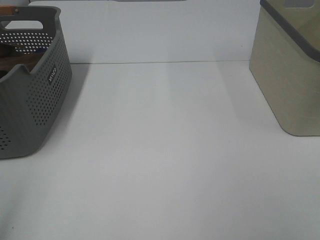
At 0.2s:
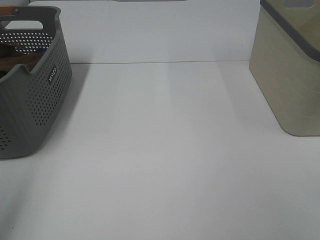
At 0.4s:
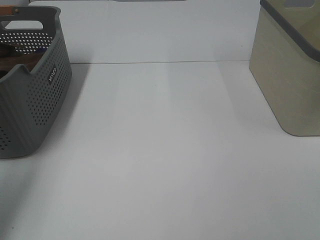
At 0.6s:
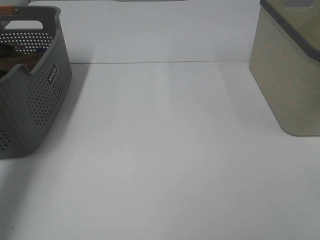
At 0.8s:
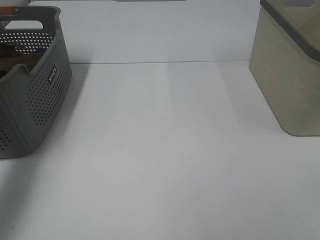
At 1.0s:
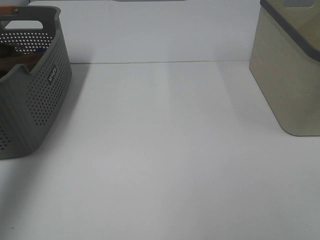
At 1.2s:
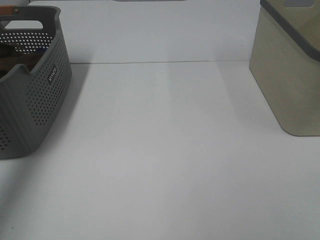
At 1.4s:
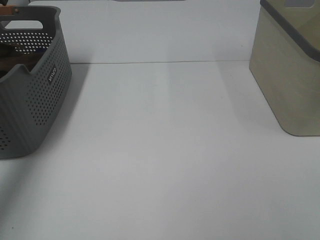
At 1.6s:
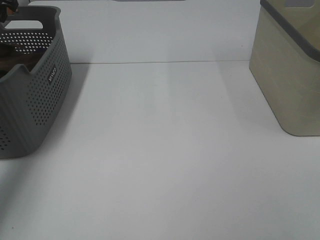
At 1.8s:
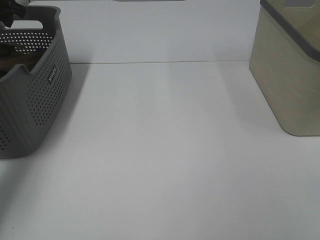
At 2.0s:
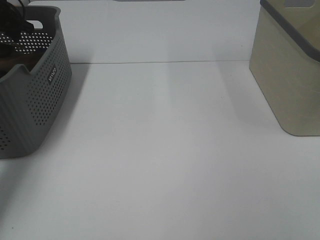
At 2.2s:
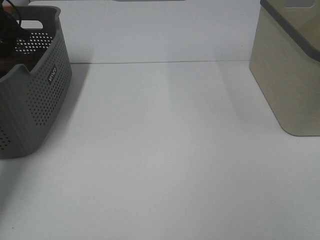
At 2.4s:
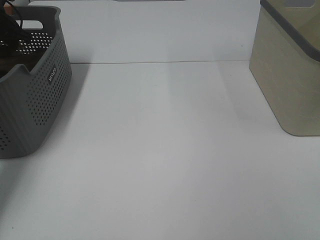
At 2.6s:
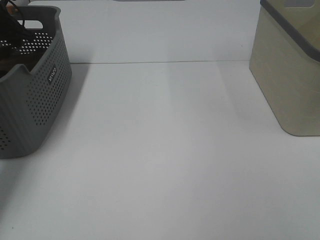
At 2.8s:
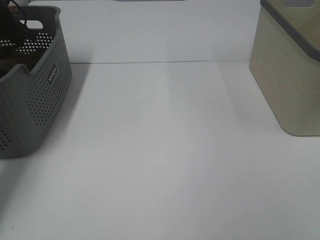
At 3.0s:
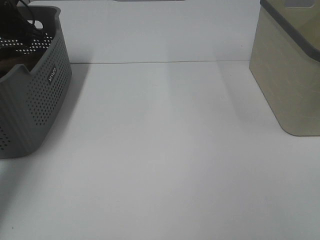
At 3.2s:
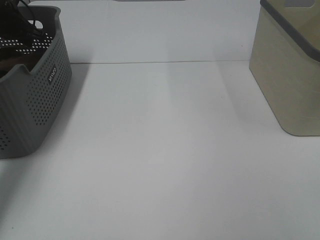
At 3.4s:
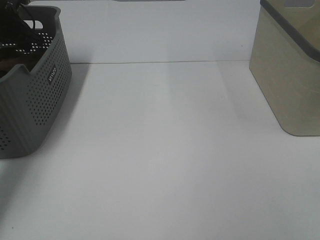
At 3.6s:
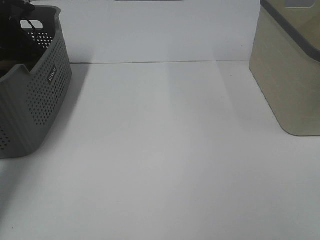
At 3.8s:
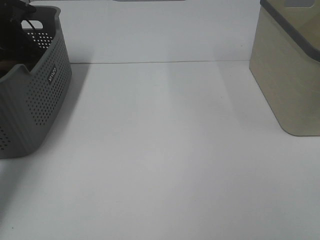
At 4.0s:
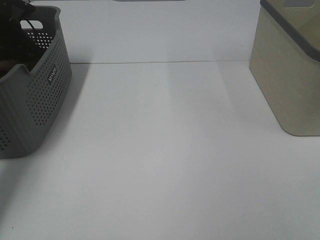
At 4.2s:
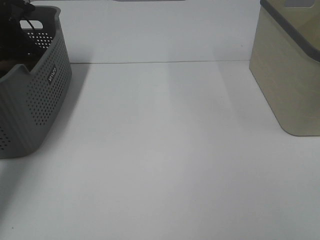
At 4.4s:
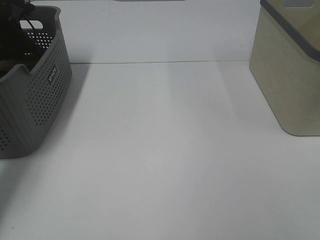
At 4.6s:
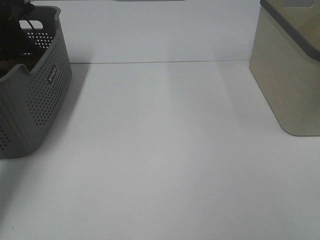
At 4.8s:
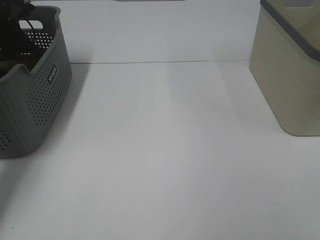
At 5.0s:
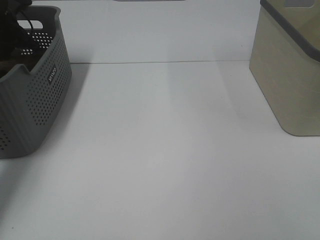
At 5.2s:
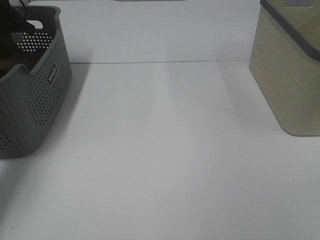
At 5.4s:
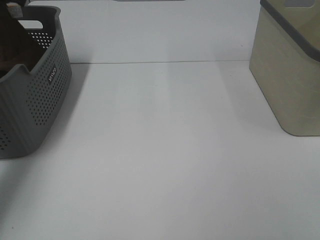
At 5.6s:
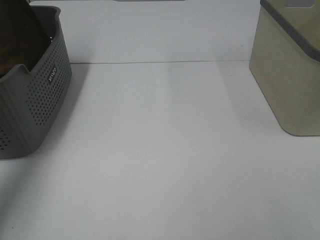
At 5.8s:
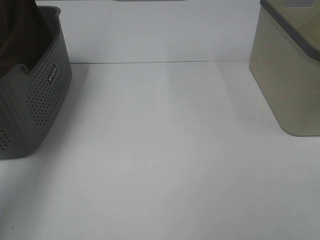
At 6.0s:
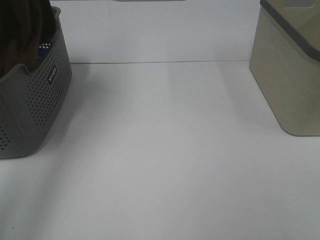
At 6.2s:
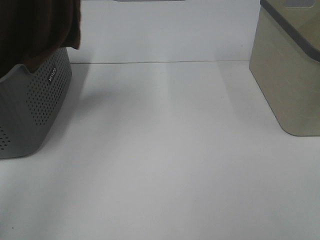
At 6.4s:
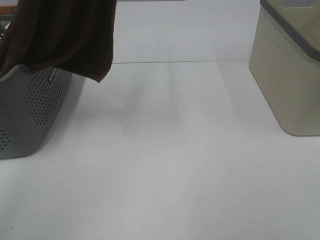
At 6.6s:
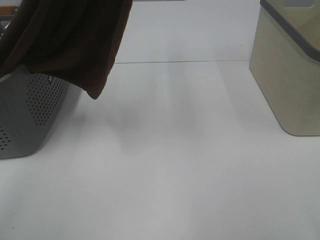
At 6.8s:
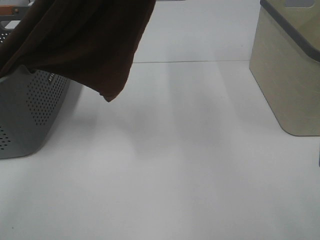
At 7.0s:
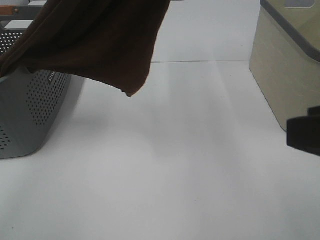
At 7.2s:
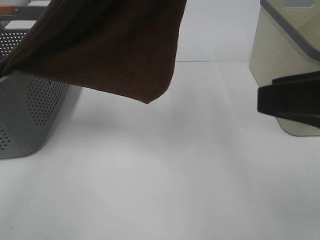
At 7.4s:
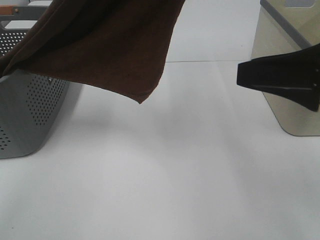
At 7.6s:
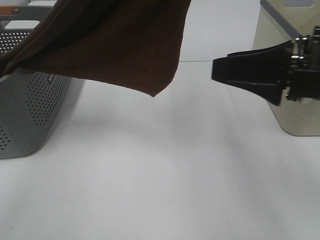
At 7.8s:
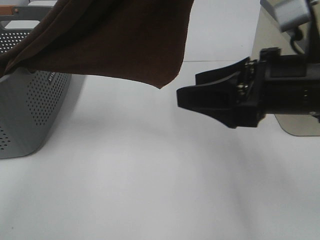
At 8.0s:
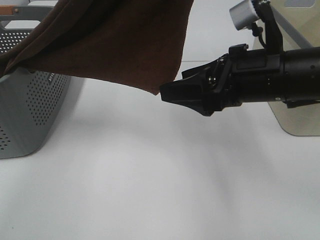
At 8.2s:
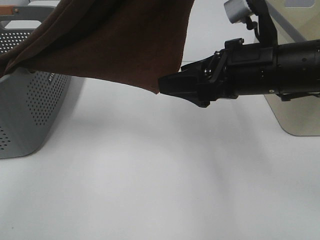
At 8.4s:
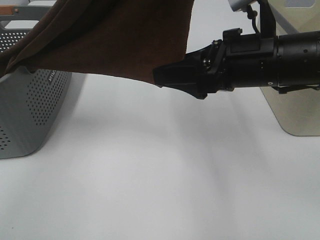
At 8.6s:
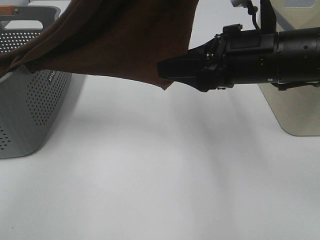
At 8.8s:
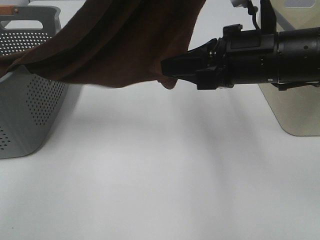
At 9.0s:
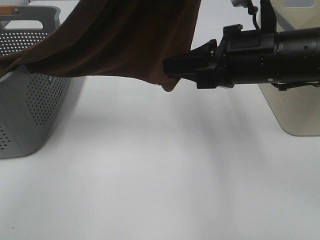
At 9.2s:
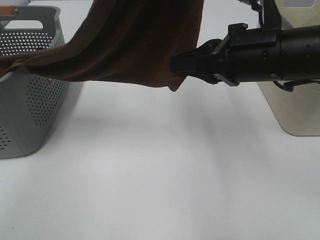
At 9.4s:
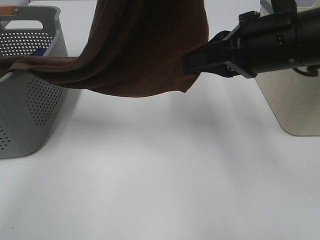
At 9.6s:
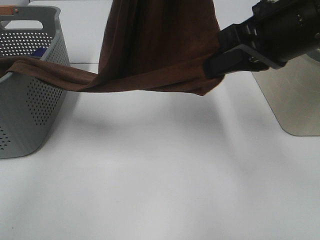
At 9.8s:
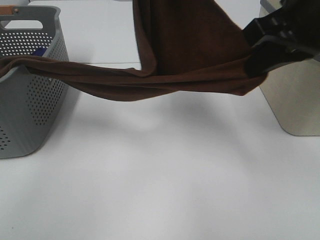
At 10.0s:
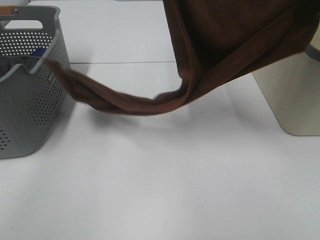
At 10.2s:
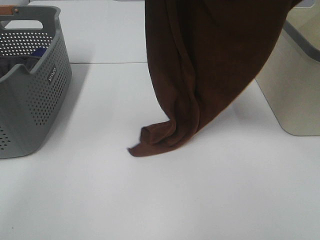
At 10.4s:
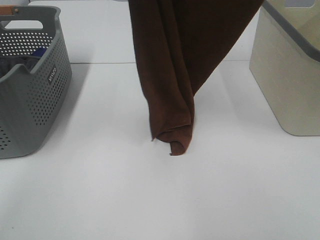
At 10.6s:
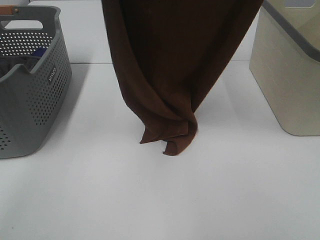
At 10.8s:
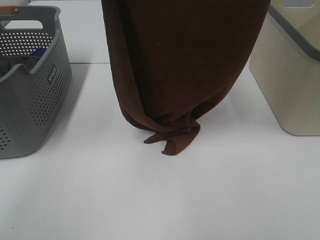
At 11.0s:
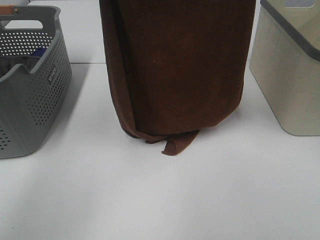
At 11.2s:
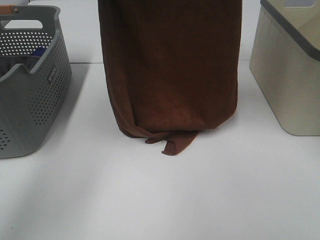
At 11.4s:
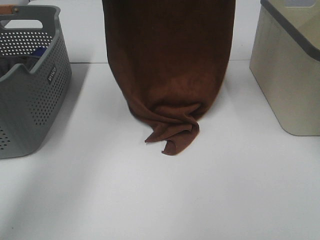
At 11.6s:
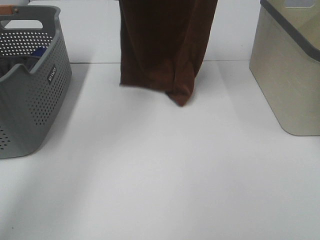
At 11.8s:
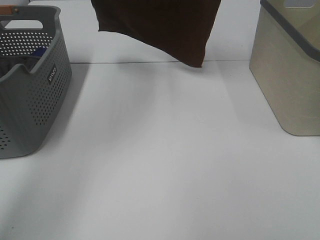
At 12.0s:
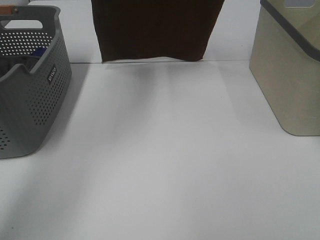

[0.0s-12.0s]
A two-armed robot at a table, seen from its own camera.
Task of the whole recording: Remove the towel and place it.
Step, 5.4s to 8.2s: Right hand: grab a corner of the brown towel and straighten it.
Step, 8.4s to 11.0s: Left hand: spread the brown towel flat on the table.
Step, 8.4s to 11.0s: Right hand: spread the brown towel flat on the table.
0.0s to 1.6s: The left gripper shifts about 50 cm forward.
1.6s to 3.0s: The left gripper shifts roughly 10 cm downward and forward.
4.4s to 6.0s: The left gripper goes about 35 cm upward and backward, and closes.
6.0s to 7.6s: The left gripper goes some 25 cm to the right and backward, while the right gripper moves forward and to the left, some 20 cm.
7.6s to 9.0s: The right gripper shifts about 10 cm to the left and forward, and closes its fingers.
9.0s to 10.4s: The left gripper is displaced to the left by about 5 cm, and travels downward and back again, approximately 10 cm each way, while the right gripper moves upward, roughly 25 cm.
10.4s to 12.0s: Both grippers move forward, roughly 15 cm.

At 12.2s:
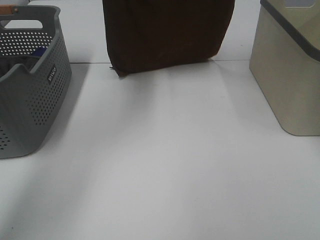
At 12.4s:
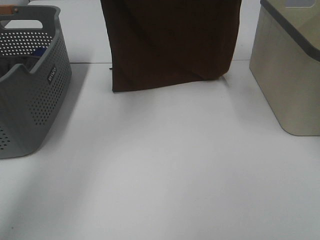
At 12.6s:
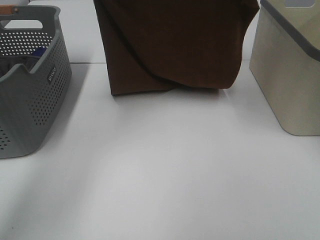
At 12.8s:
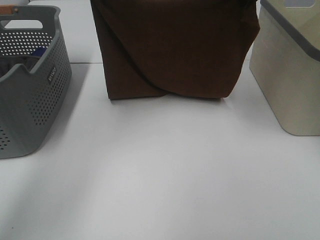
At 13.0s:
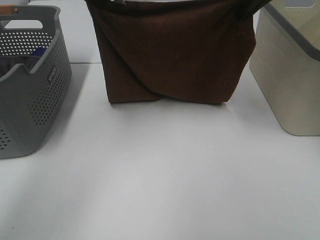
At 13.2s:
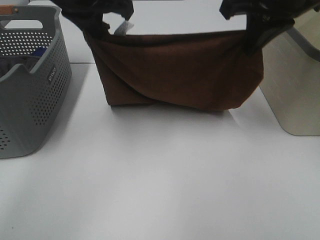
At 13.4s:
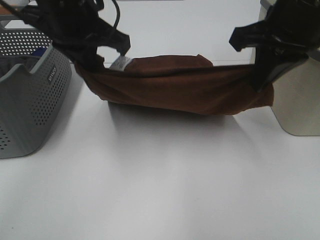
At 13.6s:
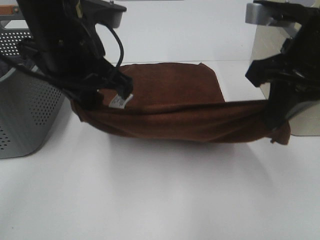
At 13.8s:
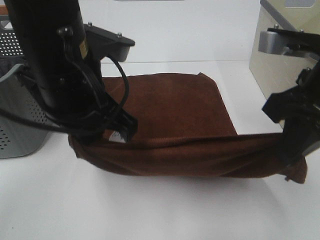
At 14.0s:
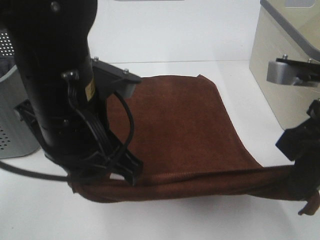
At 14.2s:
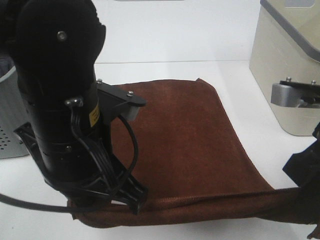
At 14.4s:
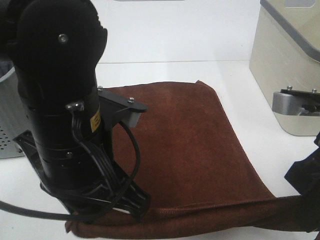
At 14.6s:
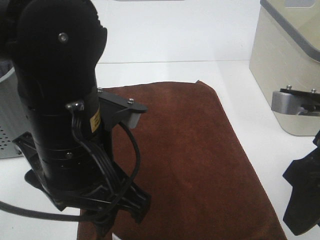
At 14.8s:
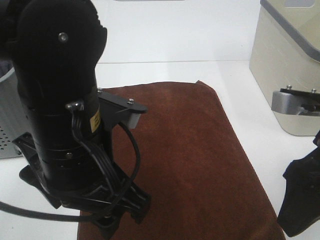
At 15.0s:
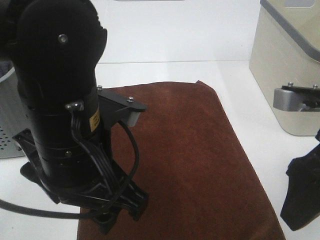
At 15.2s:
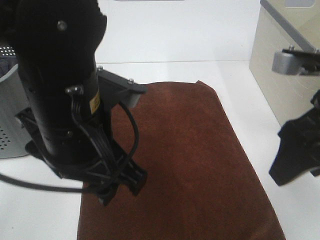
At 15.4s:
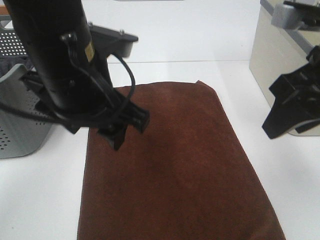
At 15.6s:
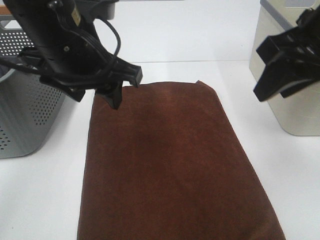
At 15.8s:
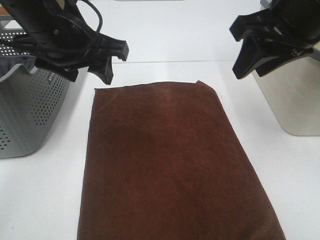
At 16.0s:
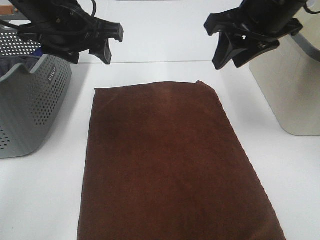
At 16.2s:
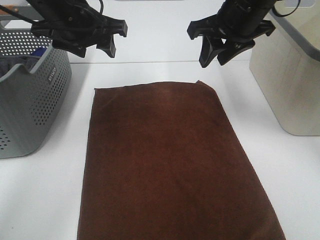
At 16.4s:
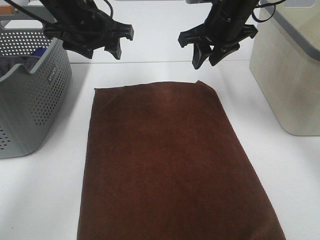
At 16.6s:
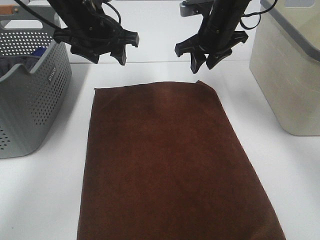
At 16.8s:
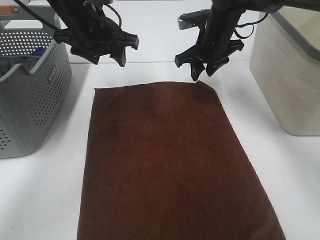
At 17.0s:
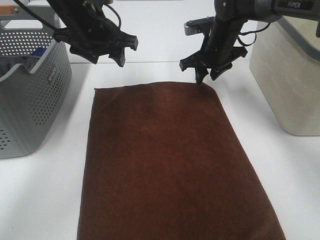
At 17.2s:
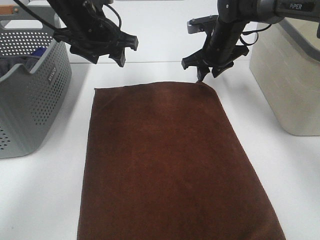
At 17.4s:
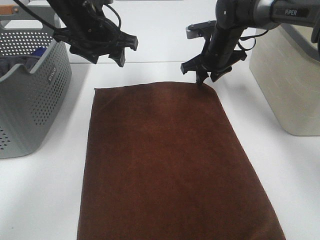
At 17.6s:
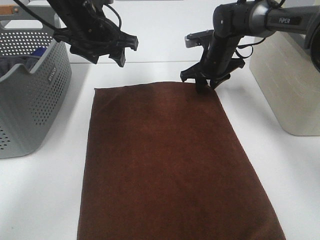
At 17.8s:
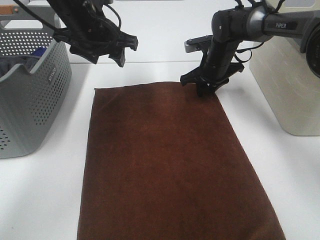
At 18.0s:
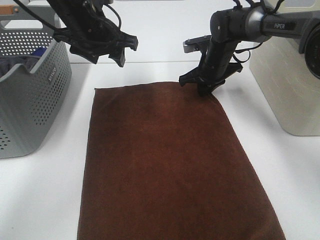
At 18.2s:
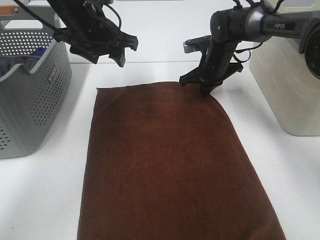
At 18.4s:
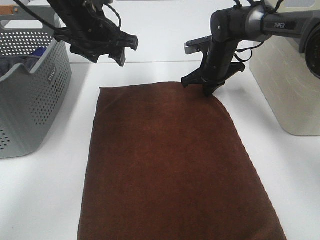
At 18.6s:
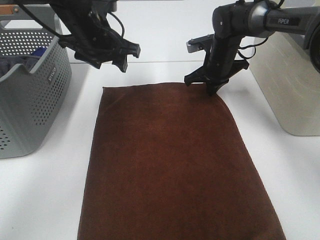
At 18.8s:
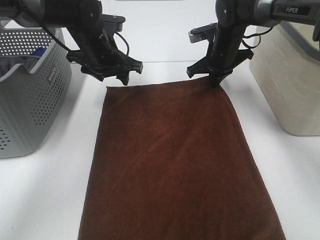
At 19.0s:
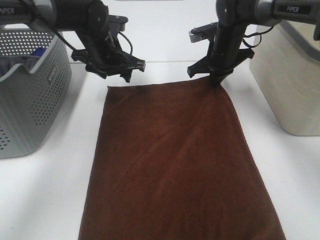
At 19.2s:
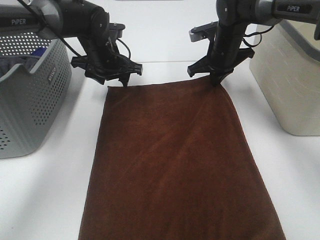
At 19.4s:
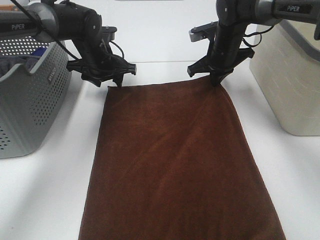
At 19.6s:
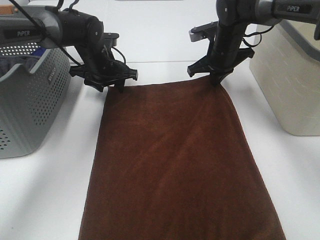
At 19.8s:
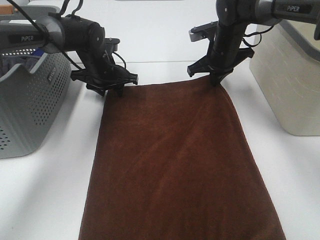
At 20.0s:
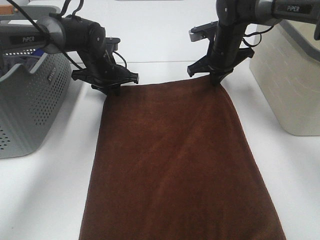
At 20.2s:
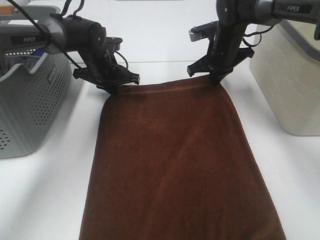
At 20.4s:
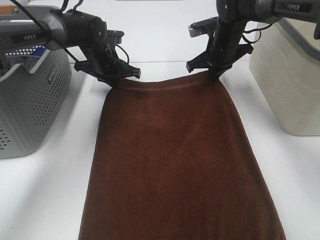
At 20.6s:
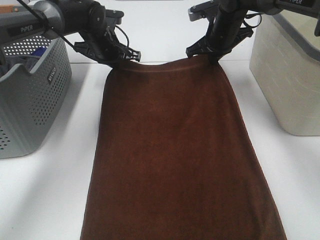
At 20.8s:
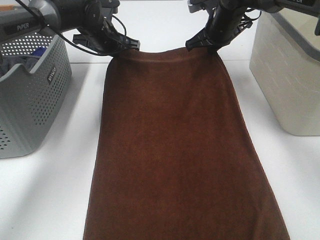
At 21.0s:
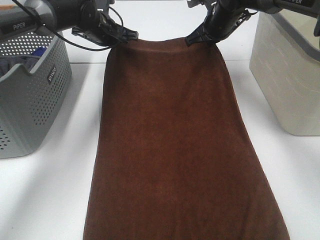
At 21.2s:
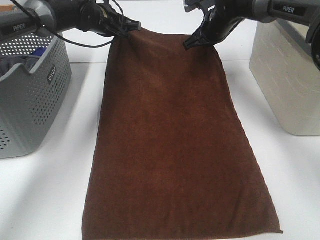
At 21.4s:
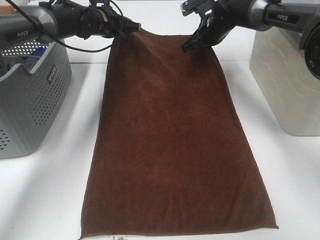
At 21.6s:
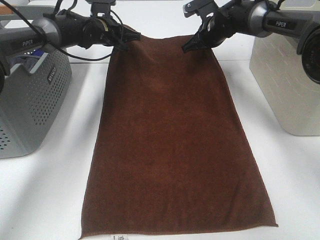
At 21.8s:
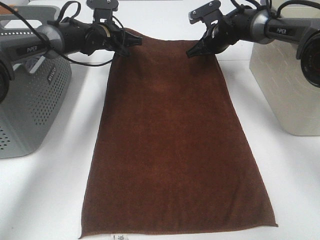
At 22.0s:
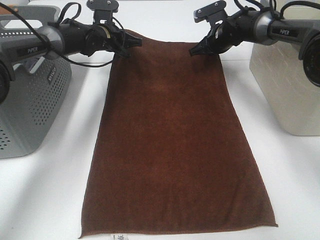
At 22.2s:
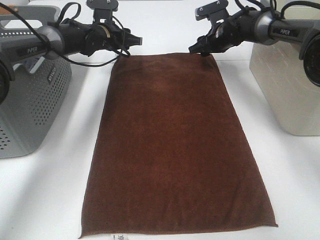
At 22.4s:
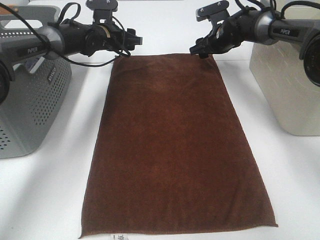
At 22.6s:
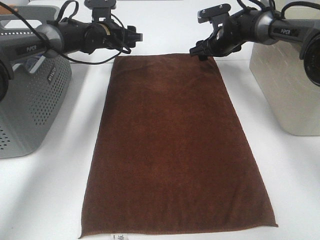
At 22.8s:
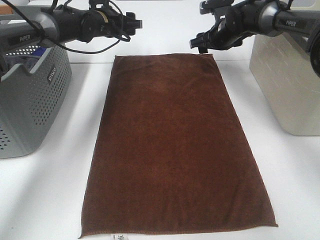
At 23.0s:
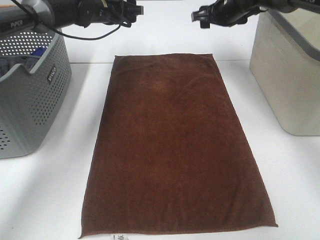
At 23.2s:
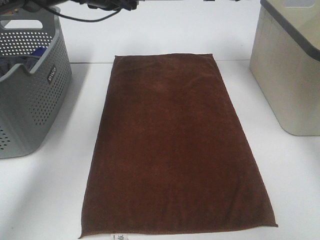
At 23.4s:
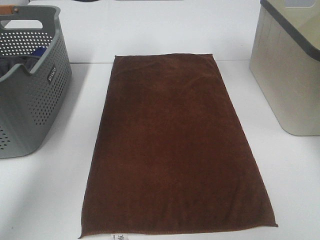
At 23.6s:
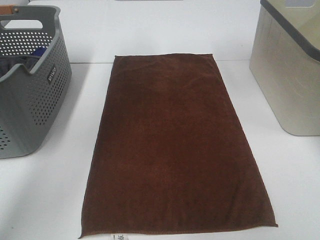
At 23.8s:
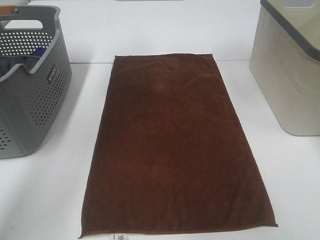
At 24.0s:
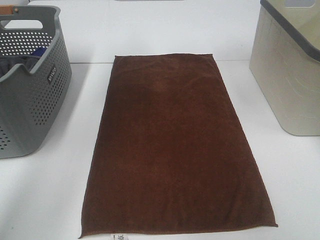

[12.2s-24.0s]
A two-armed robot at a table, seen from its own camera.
Task of the whole recording: Remove the towel and place it.
Step, 12.2s to 17.4s: Left hand:adjust the brown towel.
Step, 12.2s to 17.4s: Right hand:adjust the brown towel.
12.2s to 13.6s: The left gripper travels backward and downward by about 25 cm. Meanwhile the right gripper goes about 25 cm downward and backward.
13.6s to 15.2s: The two grippers go about 5 cm backward. The right gripper opens up. The left gripper opens up.
15.2s to 16.6s: The two grippers go about 25 cm forward.
16.6s to 18.2s: The right gripper heads downward, covering about 10 cm, and closes.
18.2s to 19.6s: The left gripper travels downward and forward by approximately 15 cm.
19.6s to 21.0s: The right gripper ends up approximately 5 cm from where it was. Meanwhile the left gripper is displaced upward and forward by approximately 10 cm, and closes.
21.0s to 22.6s: The left gripper opens up. The right gripper shifts some 5 cm downward, and opens.
22.6s to 24.0s: Both grippers travel together upward and backward, approximately 30 cm.
